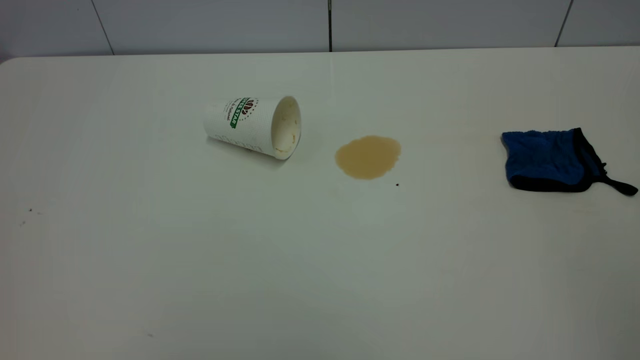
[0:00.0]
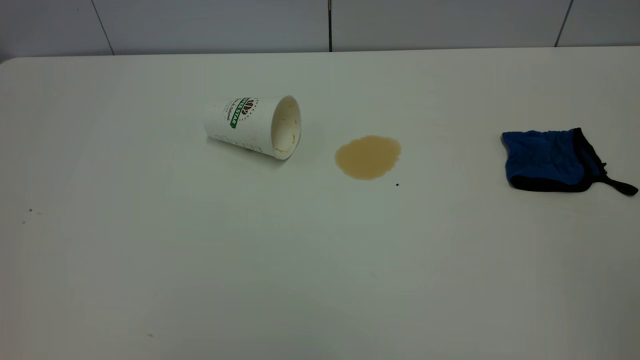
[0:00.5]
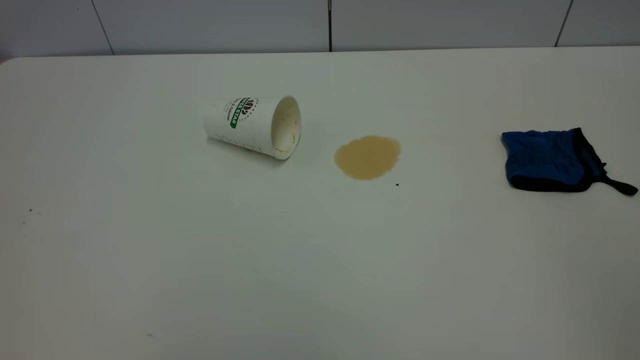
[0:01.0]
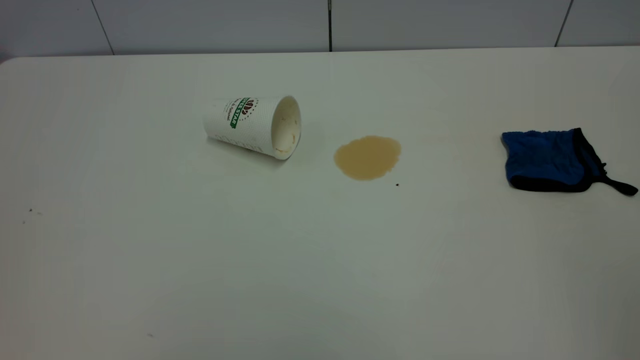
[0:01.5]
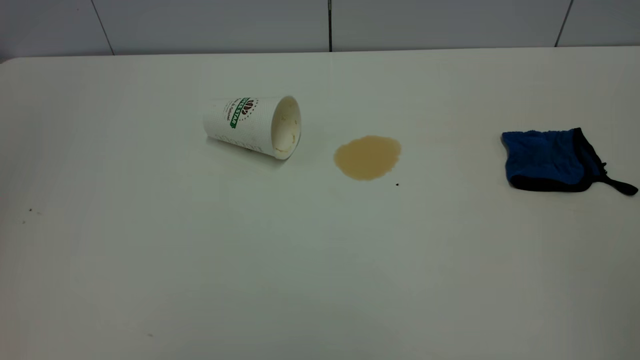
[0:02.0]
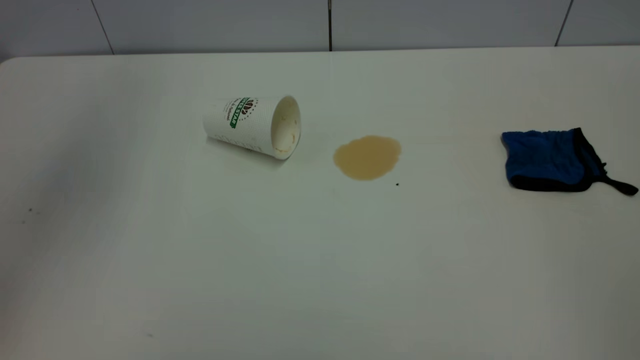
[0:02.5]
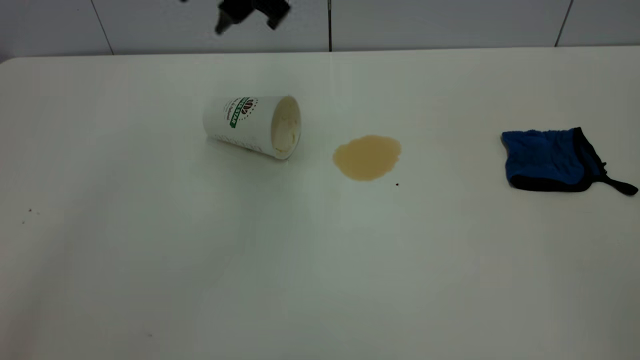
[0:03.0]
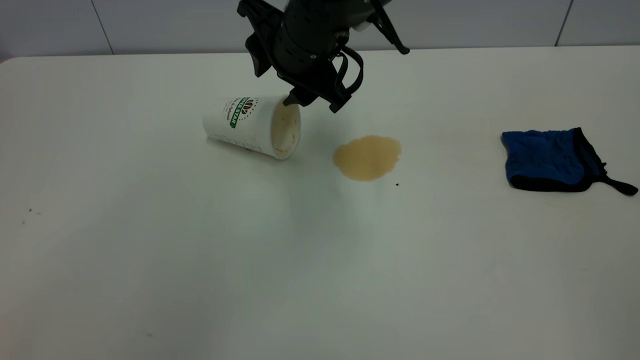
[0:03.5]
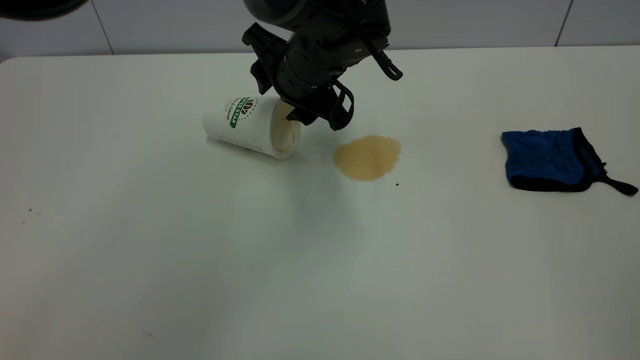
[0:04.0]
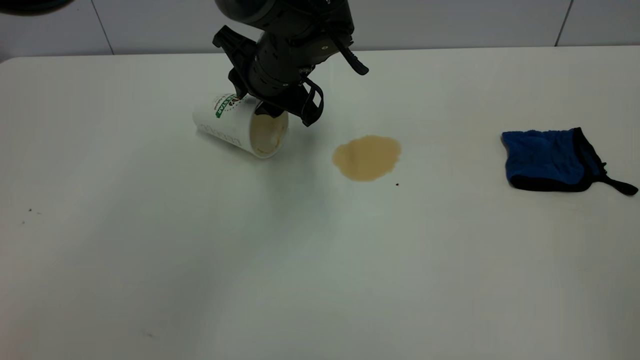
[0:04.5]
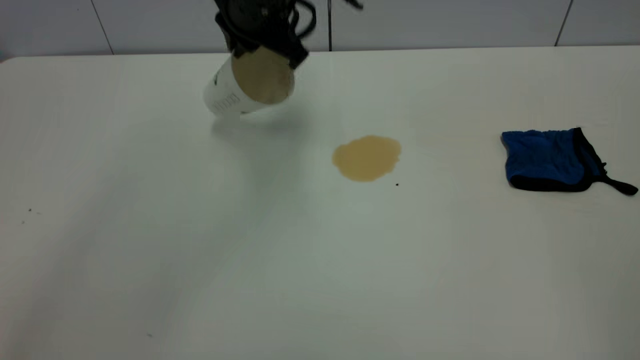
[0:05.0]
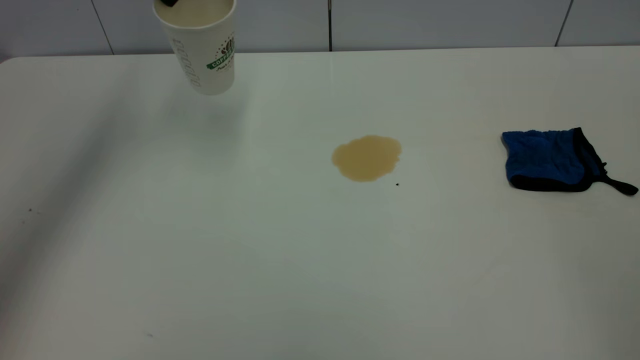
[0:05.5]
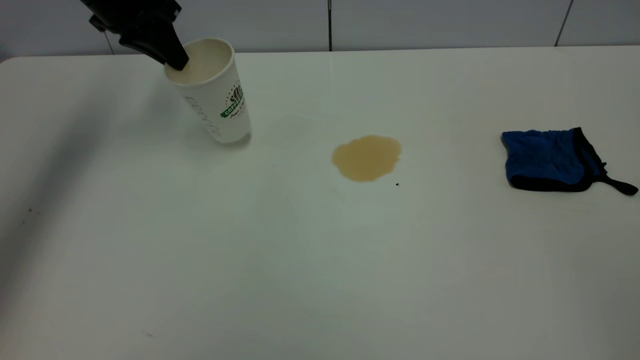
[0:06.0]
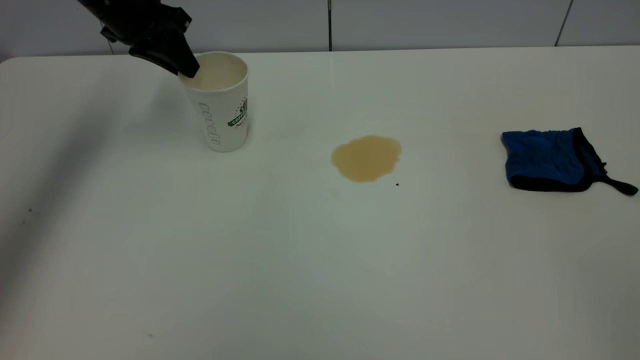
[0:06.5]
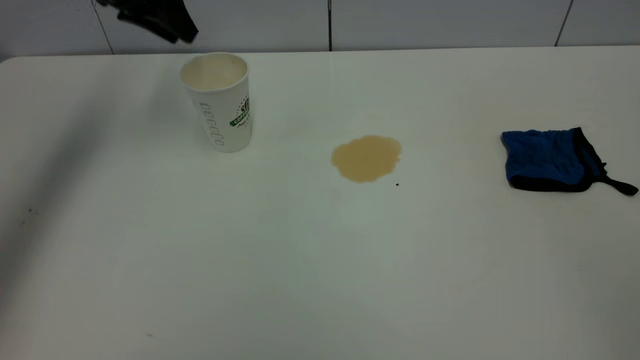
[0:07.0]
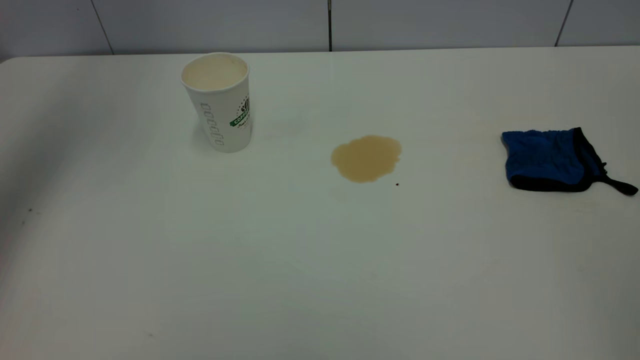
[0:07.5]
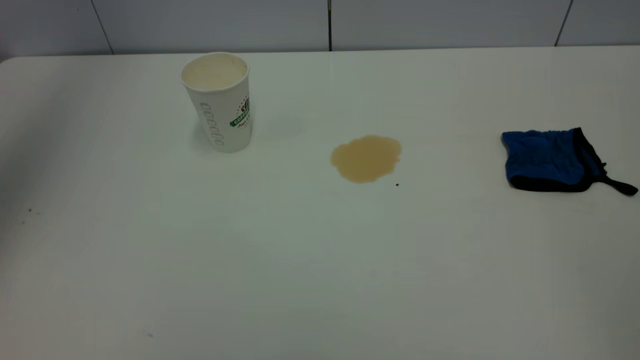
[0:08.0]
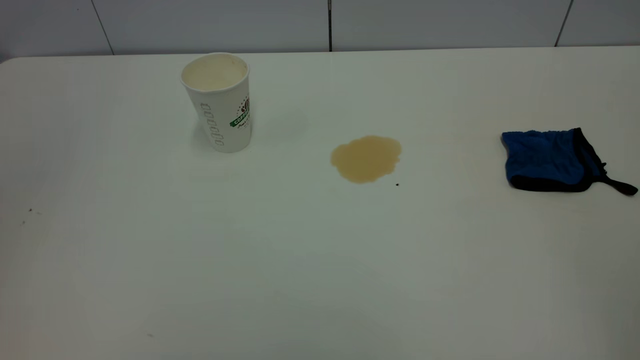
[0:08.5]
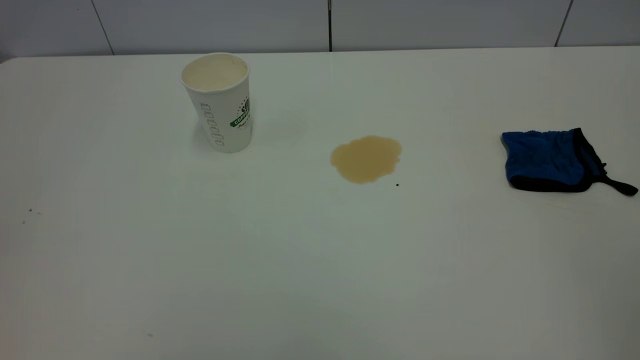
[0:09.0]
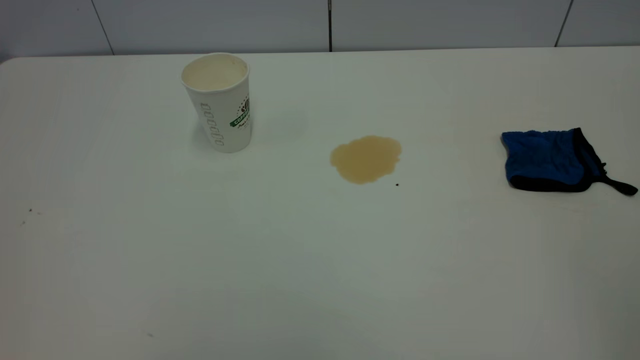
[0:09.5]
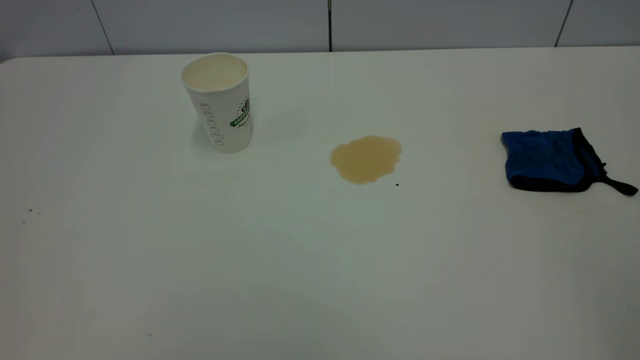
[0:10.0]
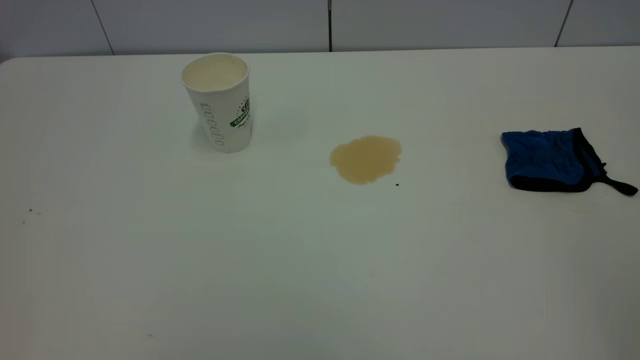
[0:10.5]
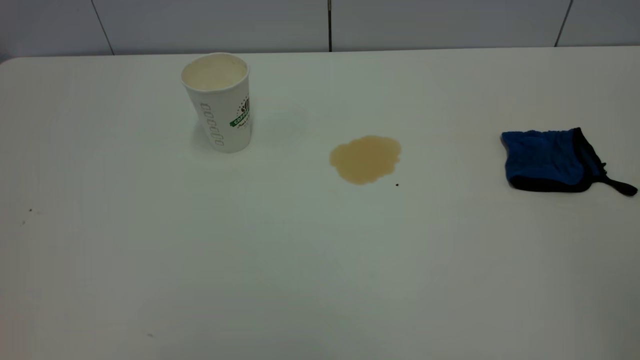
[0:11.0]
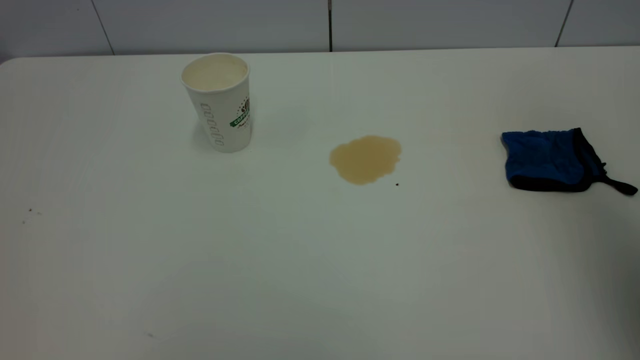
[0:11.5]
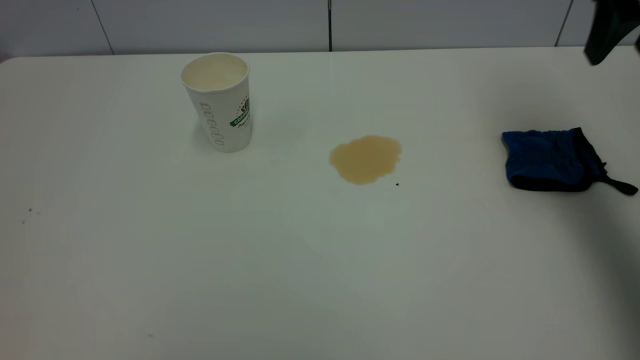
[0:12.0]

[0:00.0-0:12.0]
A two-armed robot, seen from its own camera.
Task of the whole recording: the left gripper pick up the fallen cup and place it upright, the right gripper grasp the blue rag and wipe the tea stain on the table, the right gripper put the blue rag back in its original position.
Step, 0:00.0 to 0:06.5: Stand the paper cup upright.
0:02.0 to 0:04.0: The left gripper shifts roughly 50 cm to the right, downward and forward.
0:04.0 to 0:06.0: The left gripper shifts approximately 25 cm to the left, and closes.
0:06.0 to 0:08.0: The left gripper is displaced upward and backward by roughly 35 cm, and opens.
0:08.0 to 0:10.0: The left gripper shifts some 40 cm backward and downward.
0:10.0 to 0:12.0: The right gripper shifts approximately 40 cm forward.

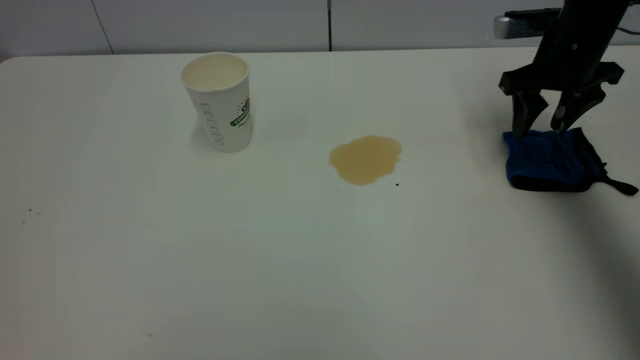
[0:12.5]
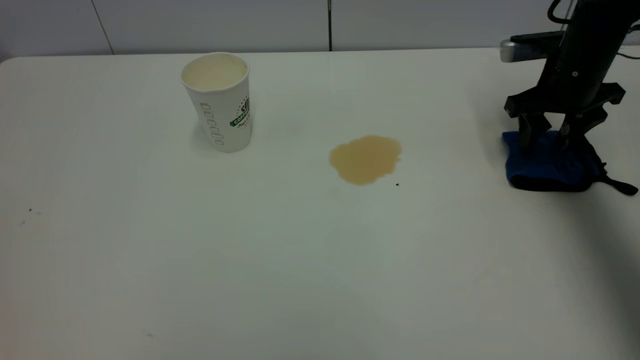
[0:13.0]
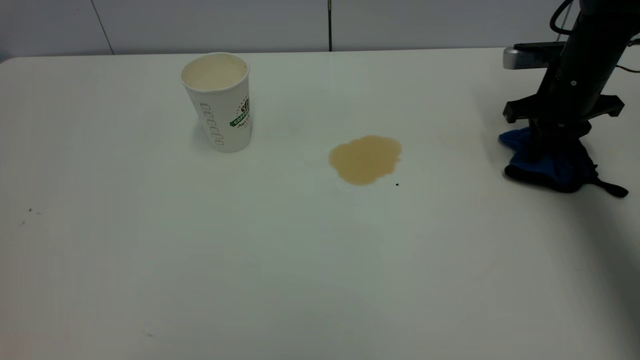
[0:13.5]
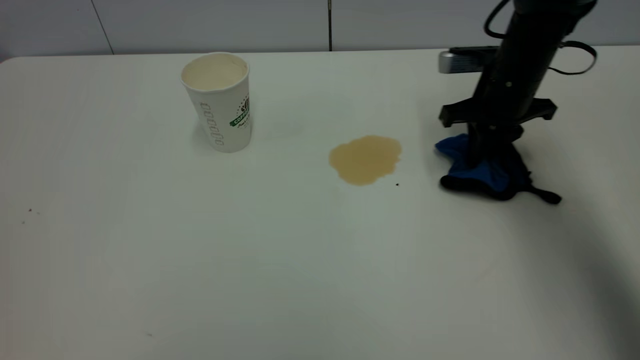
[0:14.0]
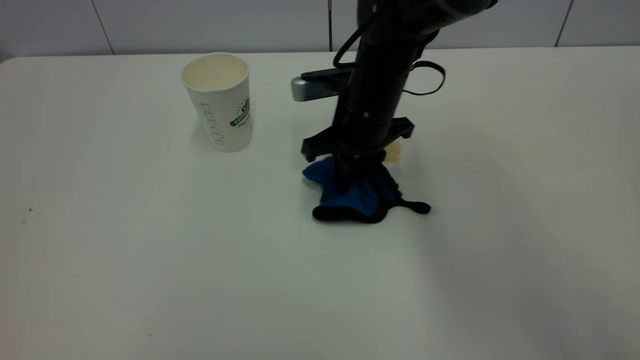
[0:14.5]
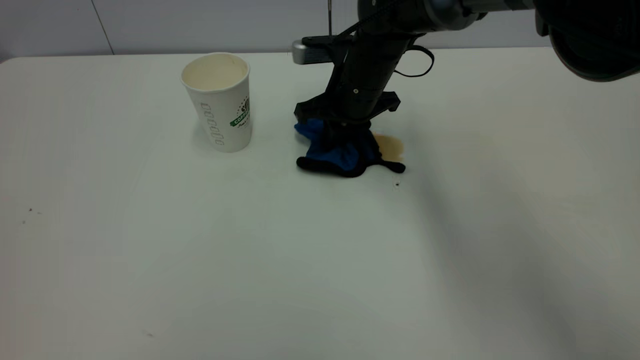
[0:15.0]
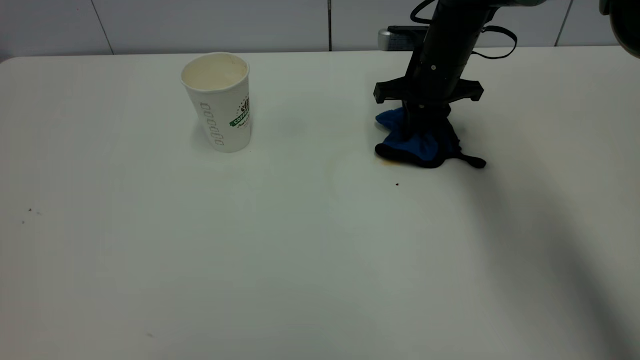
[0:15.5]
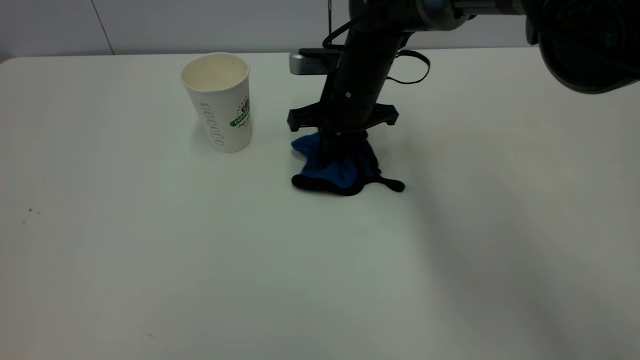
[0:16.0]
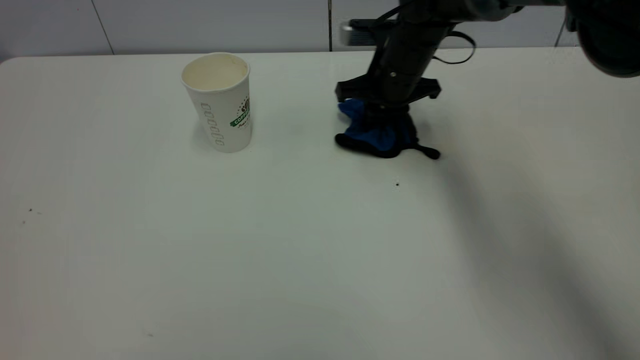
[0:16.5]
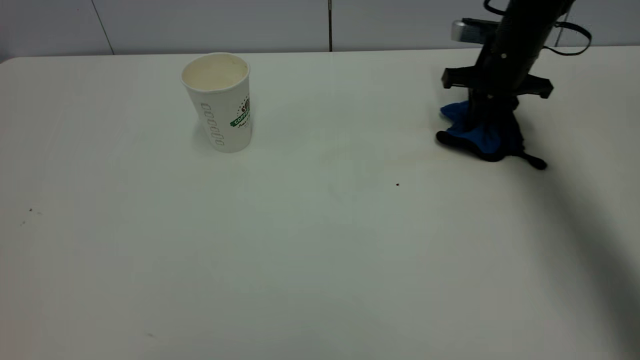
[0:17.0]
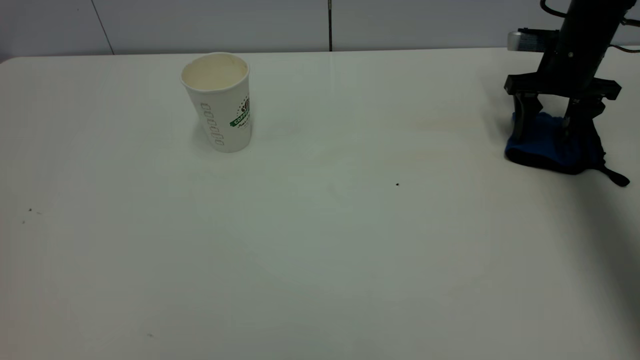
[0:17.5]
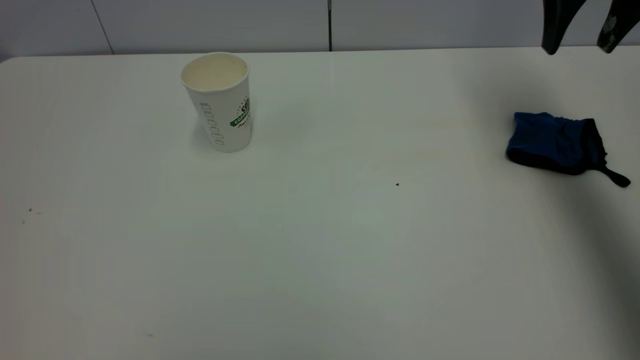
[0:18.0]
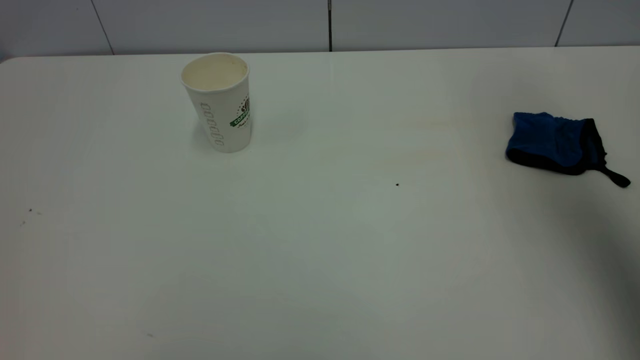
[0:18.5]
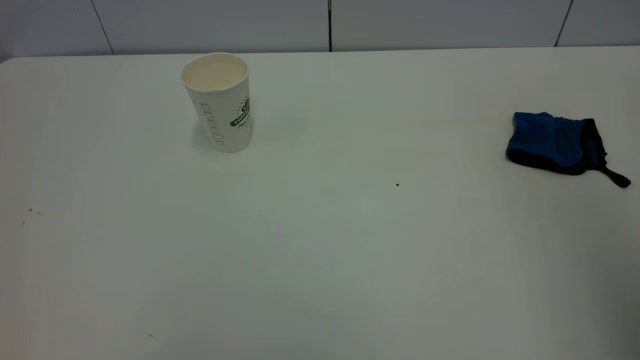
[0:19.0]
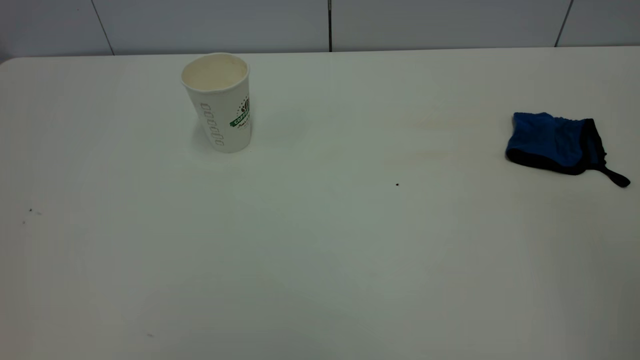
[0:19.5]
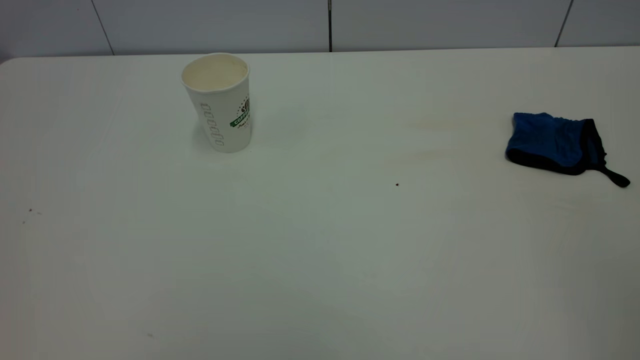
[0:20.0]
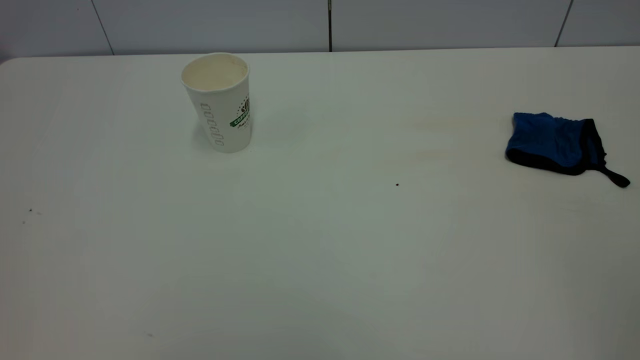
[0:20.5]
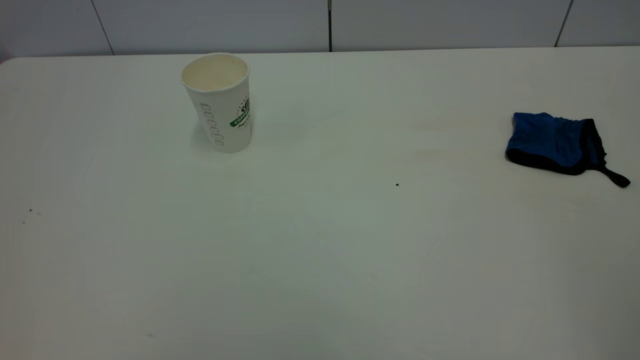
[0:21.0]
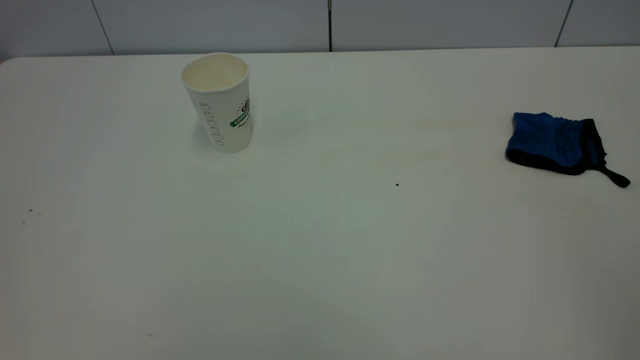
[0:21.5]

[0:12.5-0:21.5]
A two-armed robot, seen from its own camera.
Task of the whole recording: the left gripper pick up the fallen cup and place it upright, the right gripper grasp the blue rag and wipe the tea stain on the table, the right gripper put the blue rag back in its original position.
Step, 0:12.5 to 0:17.5: Wipe the stains off the table with a rag.
0:12.5 to 0:14.5: The right gripper is displaced to the left by roughly 25 cm, and closes.
0:14.5 to 0:17.0: The right gripper swings left and right, about 20 cm each way, with 2 reversals.
0:17.0 to 0:19.5: The right gripper travels backward and upward by roughly 60 cm, and opens up.
